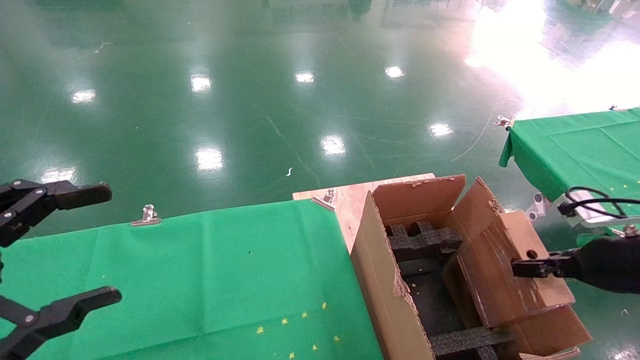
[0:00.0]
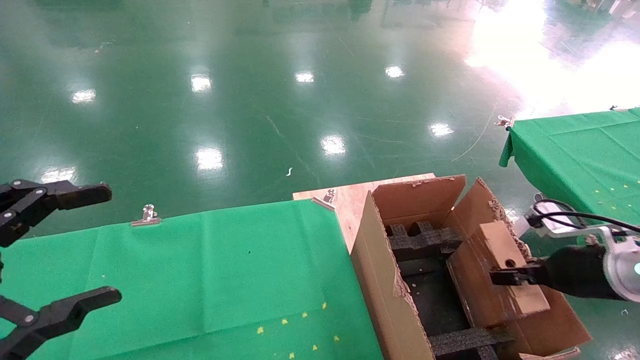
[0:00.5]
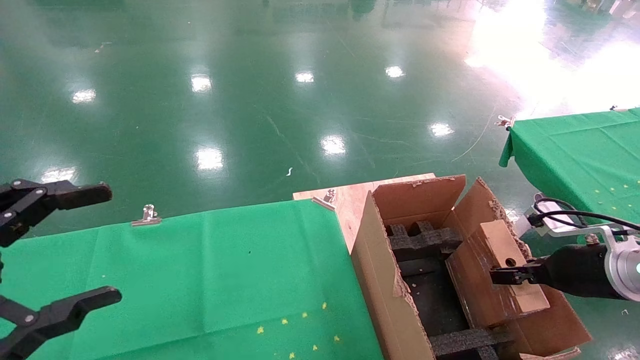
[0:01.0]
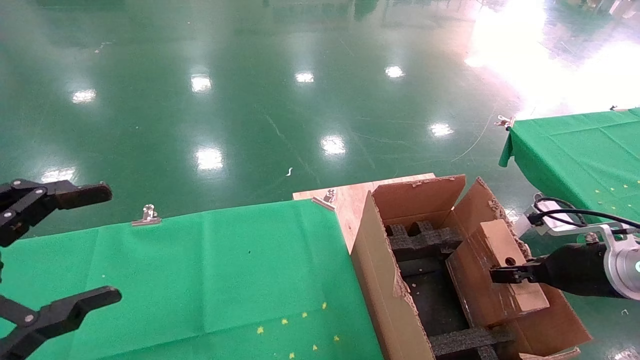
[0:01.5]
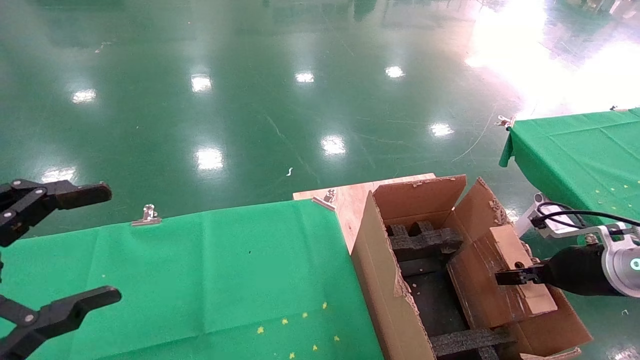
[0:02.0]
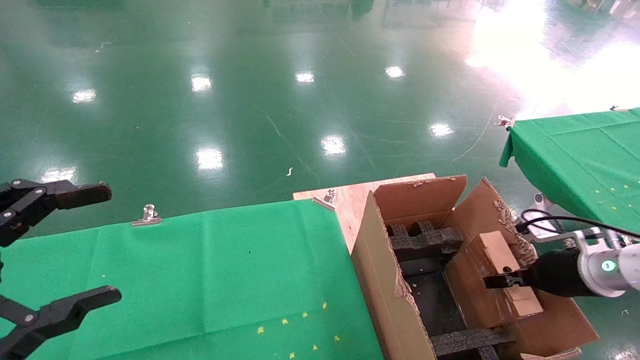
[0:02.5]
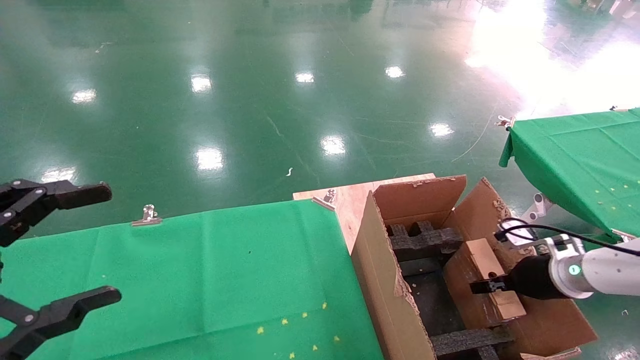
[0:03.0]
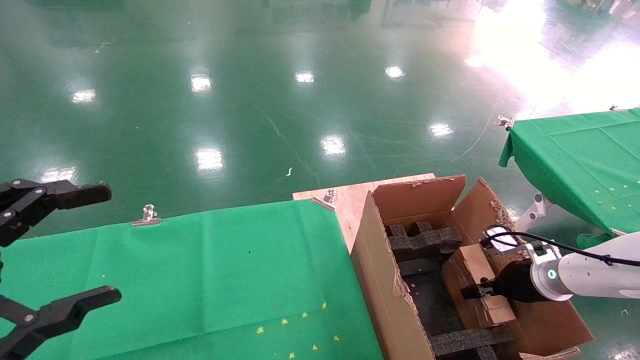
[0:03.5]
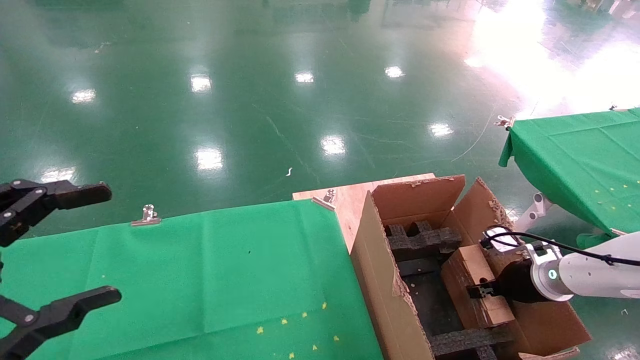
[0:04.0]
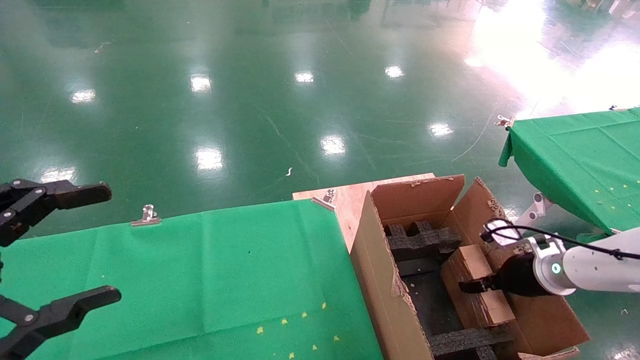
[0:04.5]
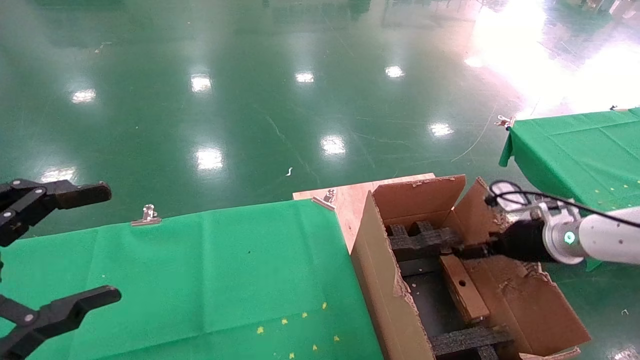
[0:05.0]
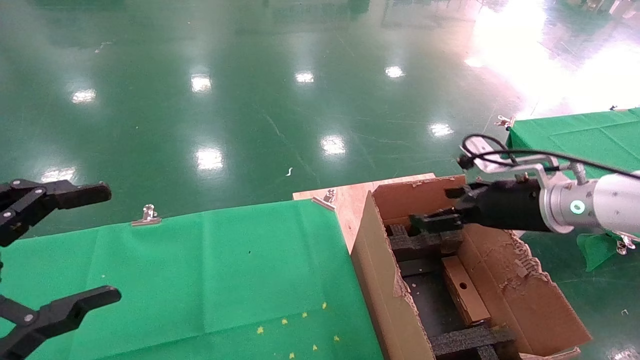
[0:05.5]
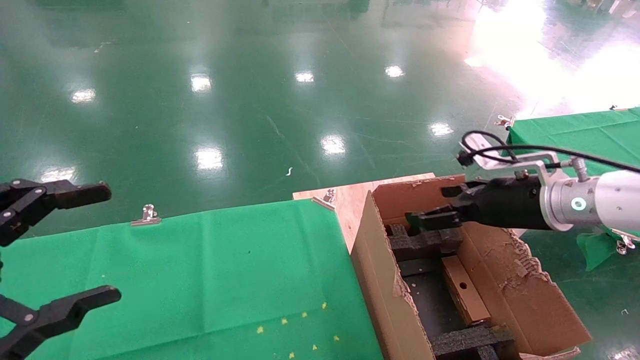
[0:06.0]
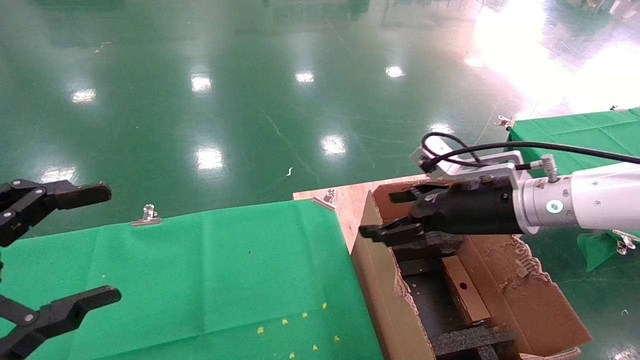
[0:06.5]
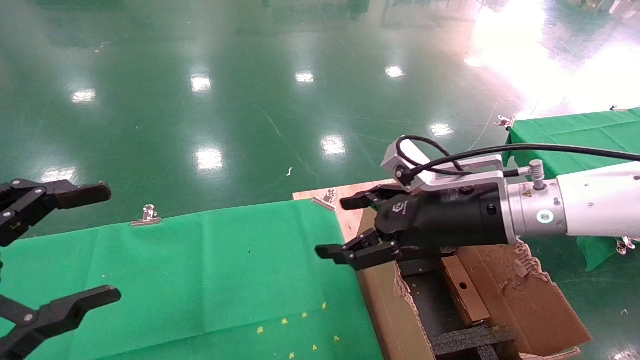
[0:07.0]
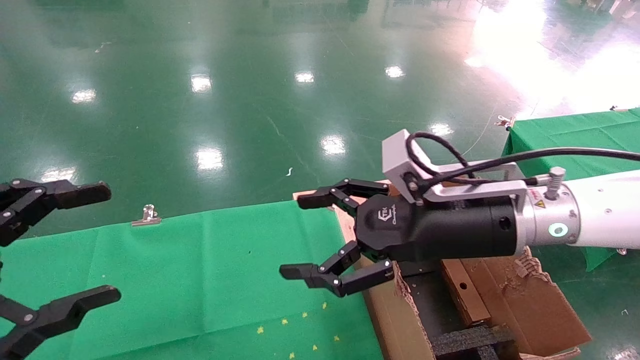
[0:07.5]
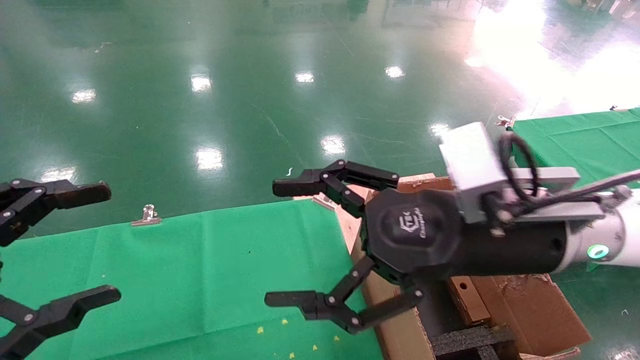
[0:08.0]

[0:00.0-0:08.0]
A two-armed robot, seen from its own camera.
Task of the whole recording: using a robotic arm to pick up a cardboard box and palace it the carton.
Step, 0:00.0 to 0:05.0: Place the mouse and the power cord paper box into the container.
0:00.0 to 0:02.0: The right gripper changes place by some 5 cm.
0:02.0 to 0:04.0: The right gripper is displaced forward and downward by some 10 cm.
0:04.0 to 0:06.0: The right gripper moves upward and to the left, some 20 cm, and opens up.
0:06.0 to 0:08.0: The right gripper goes some 15 cm to the left and backward.
